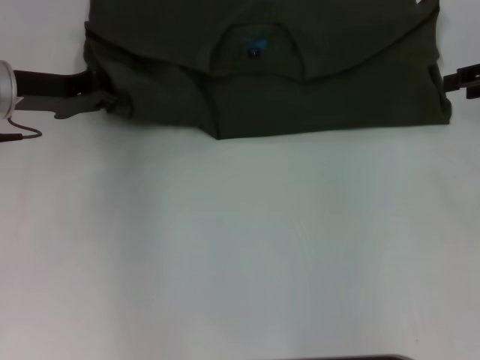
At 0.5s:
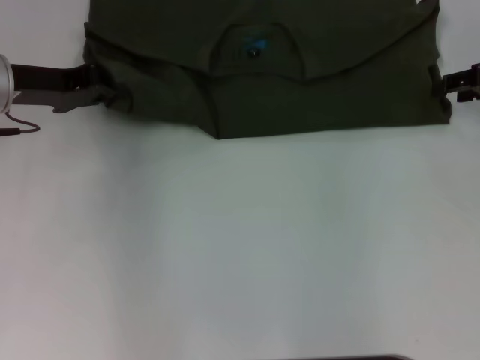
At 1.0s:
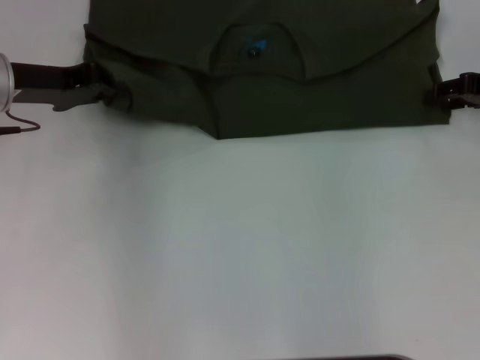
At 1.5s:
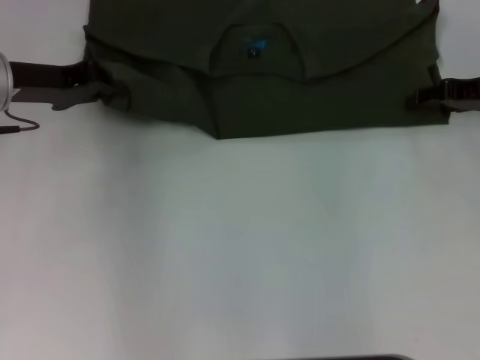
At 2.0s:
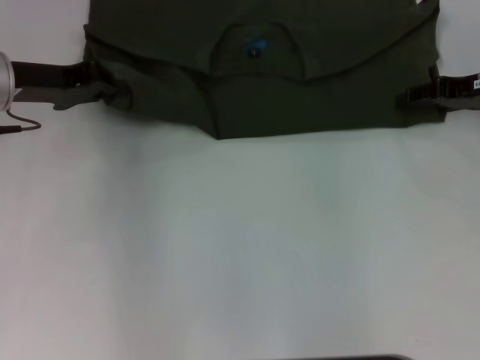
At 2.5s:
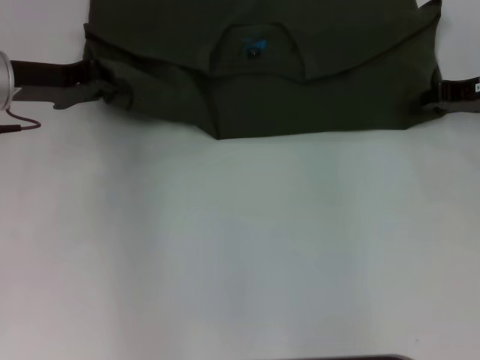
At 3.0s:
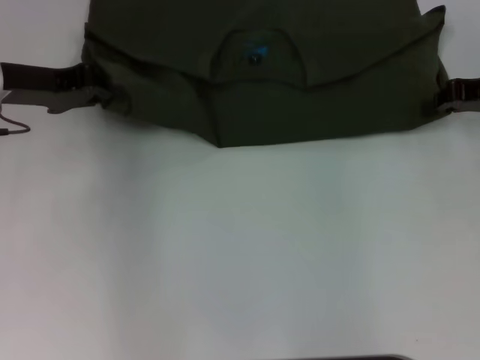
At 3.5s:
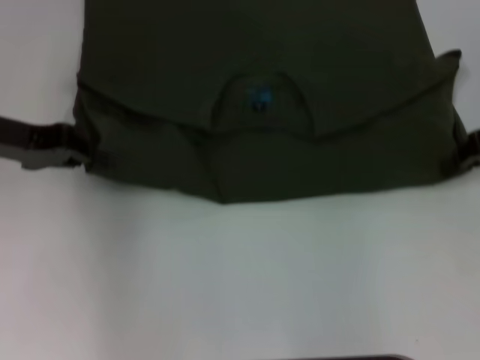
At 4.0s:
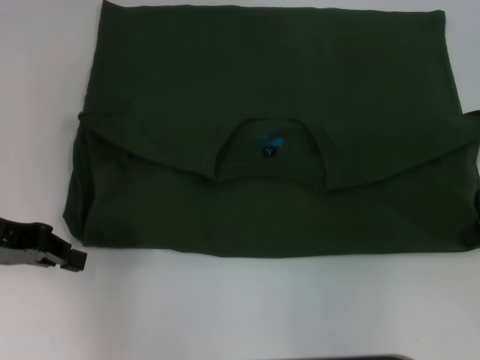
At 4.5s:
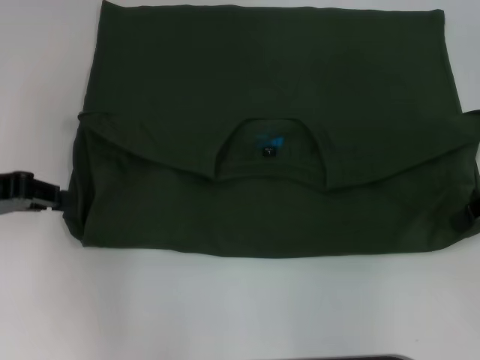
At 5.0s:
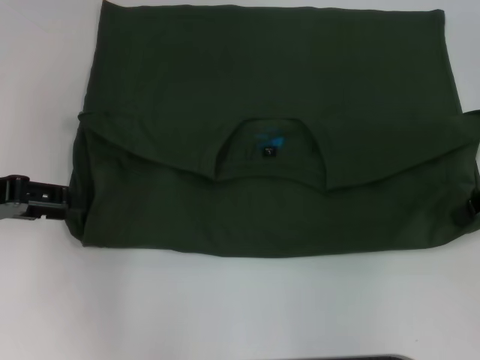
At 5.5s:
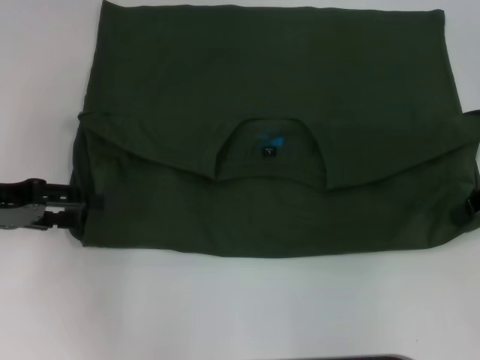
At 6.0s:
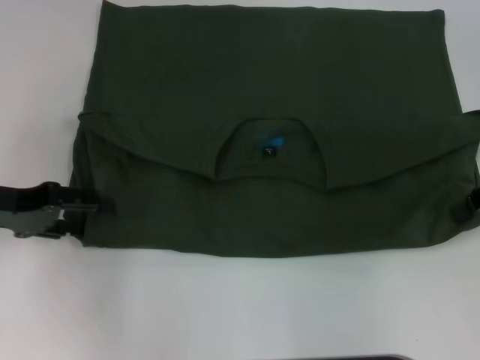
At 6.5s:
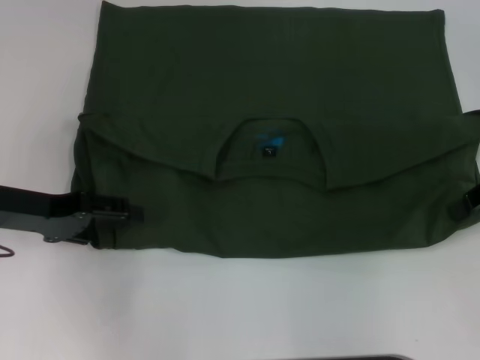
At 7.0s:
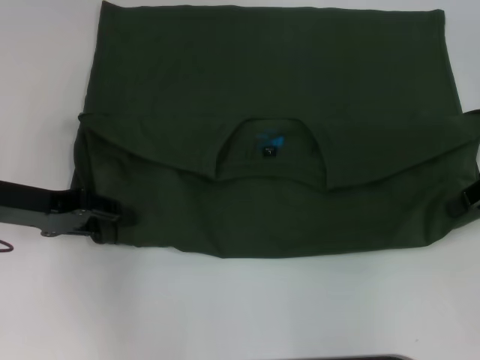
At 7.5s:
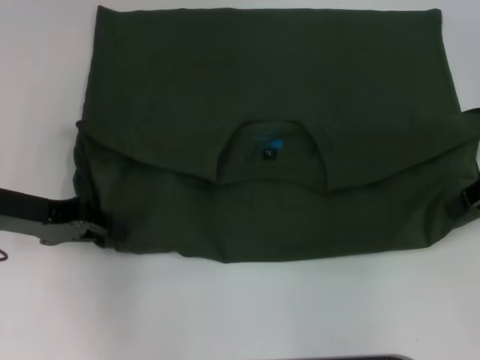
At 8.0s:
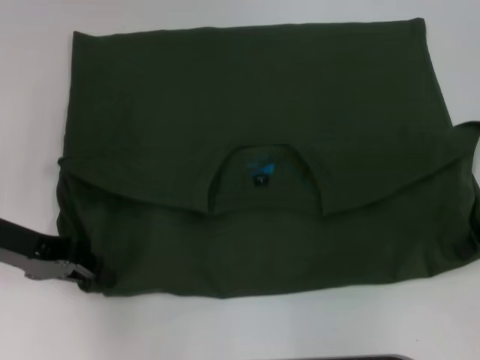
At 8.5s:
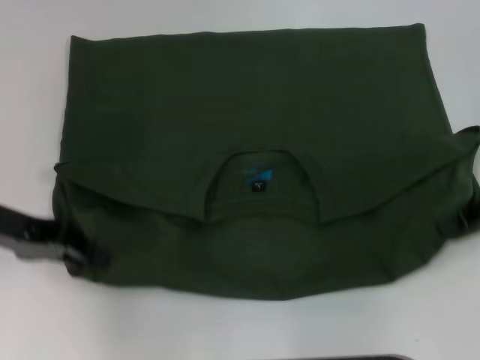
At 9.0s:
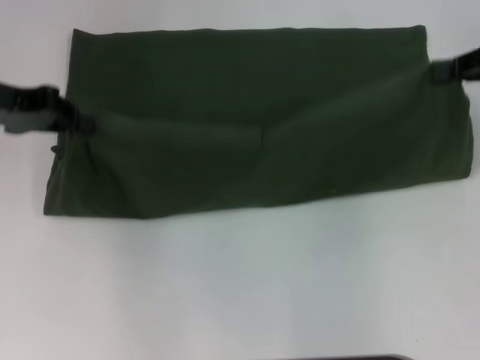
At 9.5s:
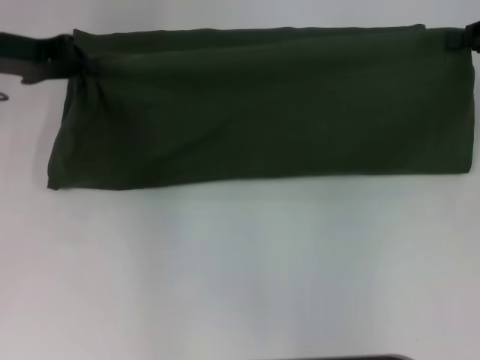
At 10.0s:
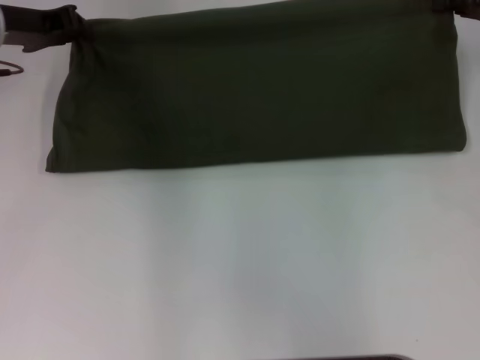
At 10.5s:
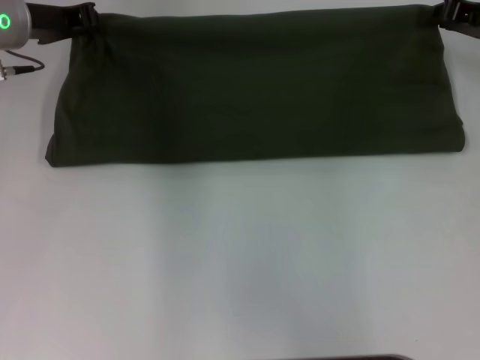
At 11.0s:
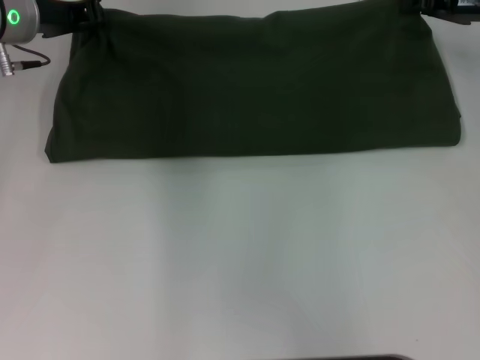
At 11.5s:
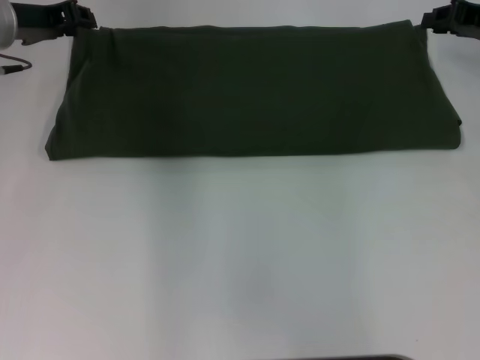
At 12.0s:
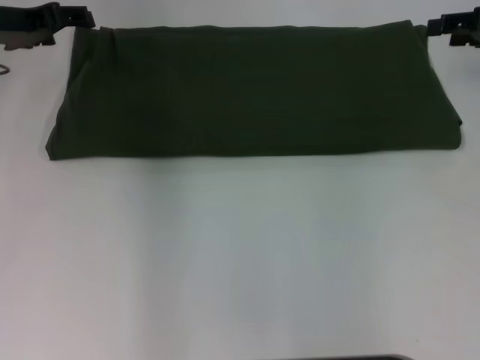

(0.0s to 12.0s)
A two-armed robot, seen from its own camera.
Step, 0.0s - 4.0s: Pull the clothes with your left hand.
Step, 0.0s - 4.0s: Pull the clothes with your right hand.
0.0s - 2.0s: The right gripper shifts by some 5 cm.
2.0s - 4.0s: Both grippers move backward, roughly 10 cm. The right gripper closes.
4.0s - 6.0s: The left gripper opens up.
6.0s - 8.0s: The left gripper closes up.
8.0s - 10.0s: The two grippers go approximately 10 cm forward.
10.0s - 12.0s: The left gripper opens. Meanwhile the right gripper opens up.

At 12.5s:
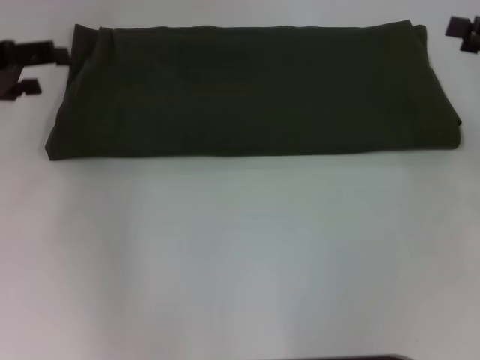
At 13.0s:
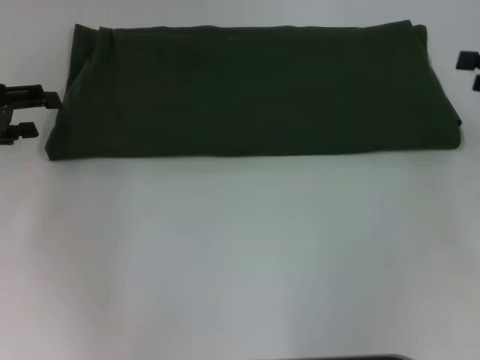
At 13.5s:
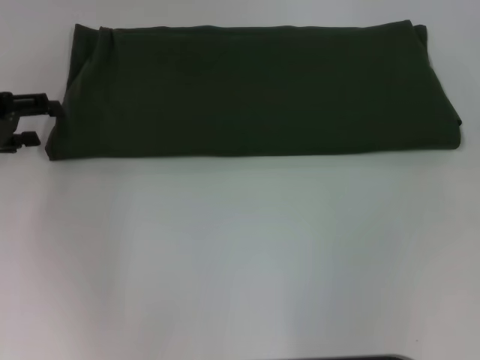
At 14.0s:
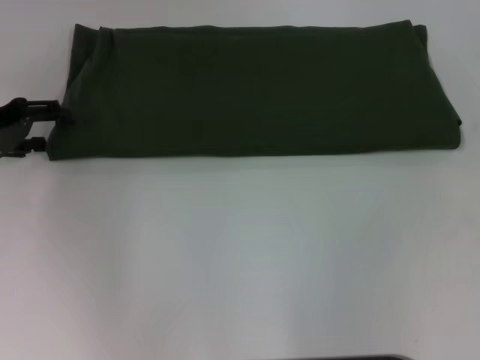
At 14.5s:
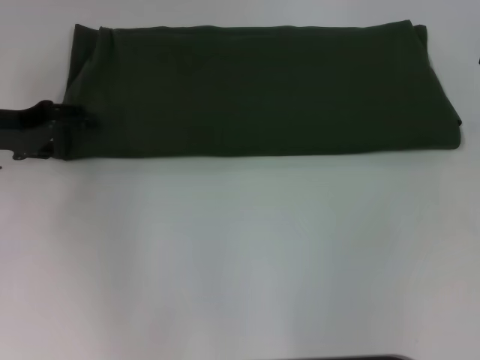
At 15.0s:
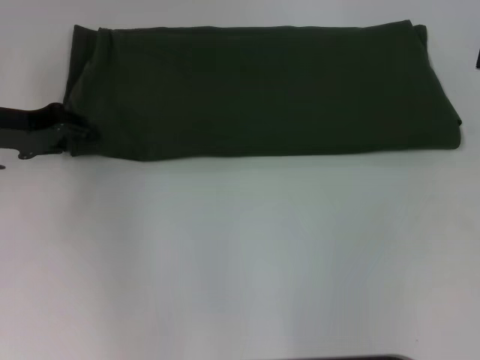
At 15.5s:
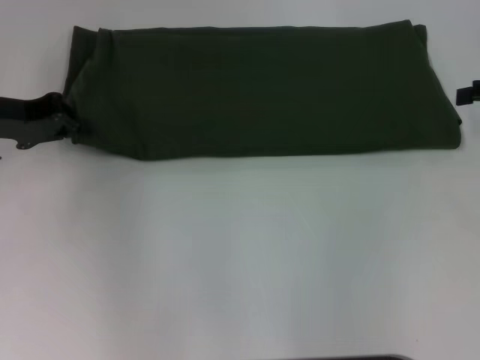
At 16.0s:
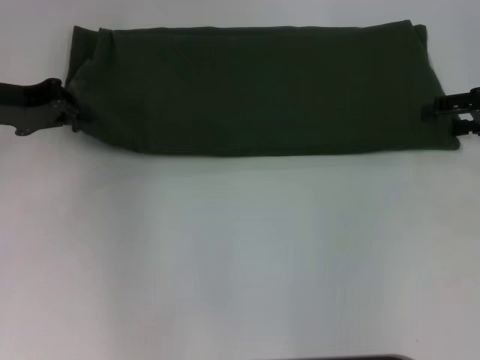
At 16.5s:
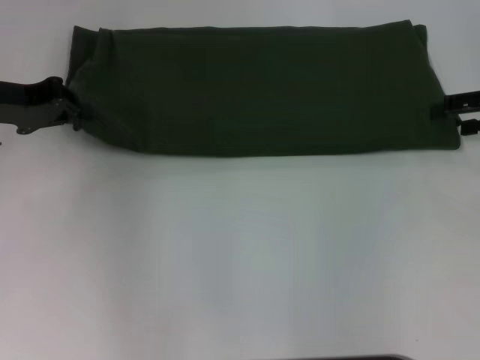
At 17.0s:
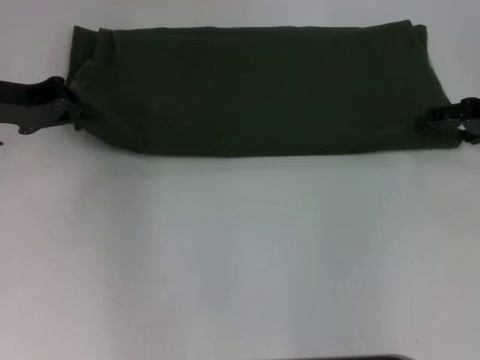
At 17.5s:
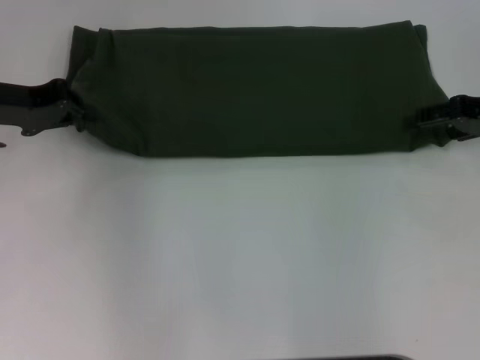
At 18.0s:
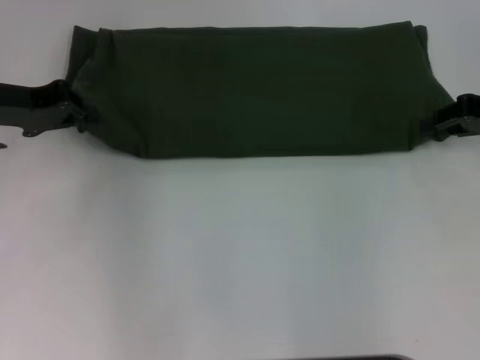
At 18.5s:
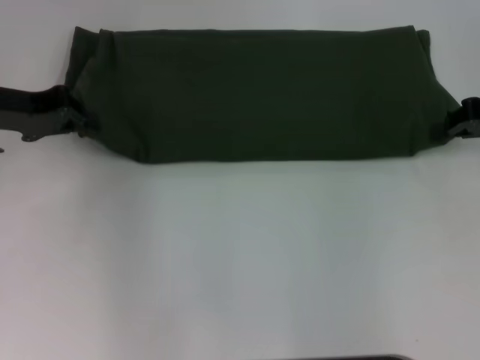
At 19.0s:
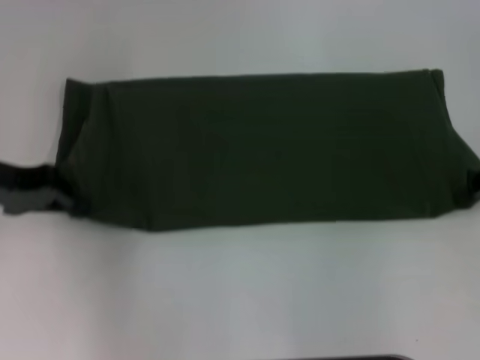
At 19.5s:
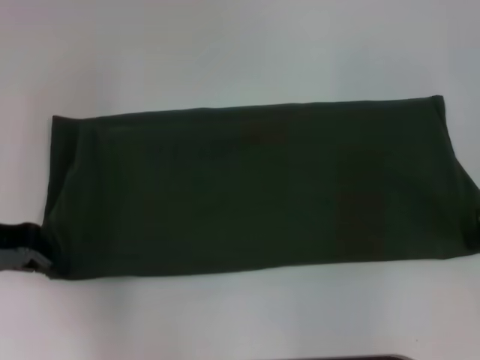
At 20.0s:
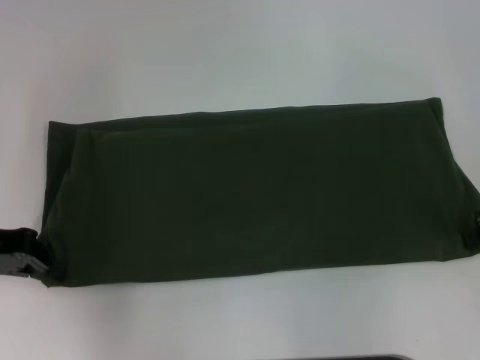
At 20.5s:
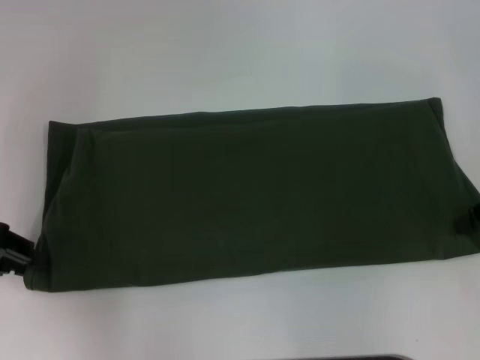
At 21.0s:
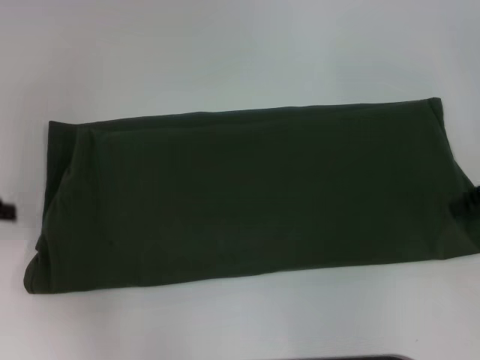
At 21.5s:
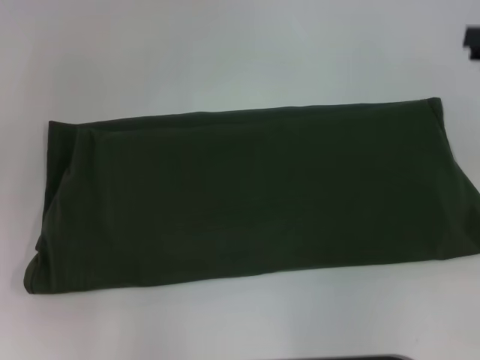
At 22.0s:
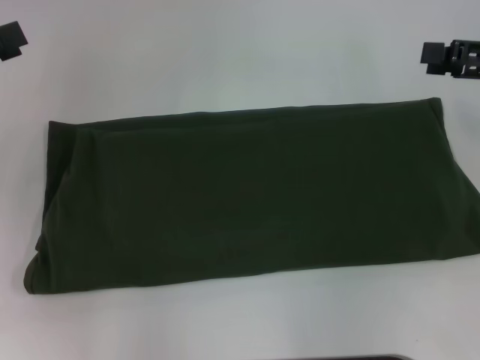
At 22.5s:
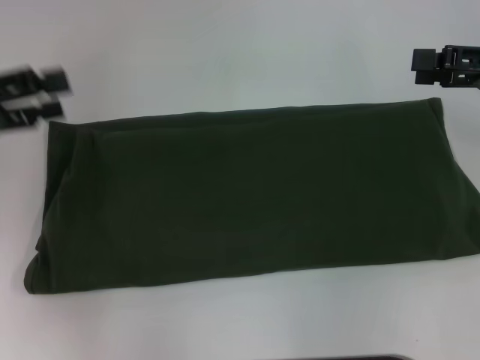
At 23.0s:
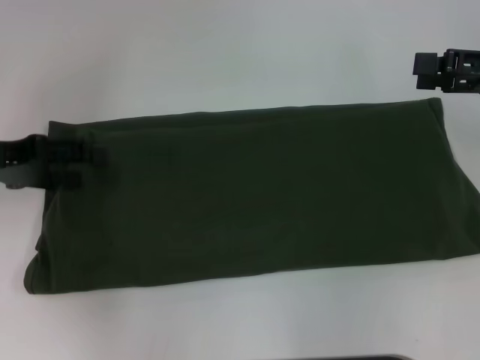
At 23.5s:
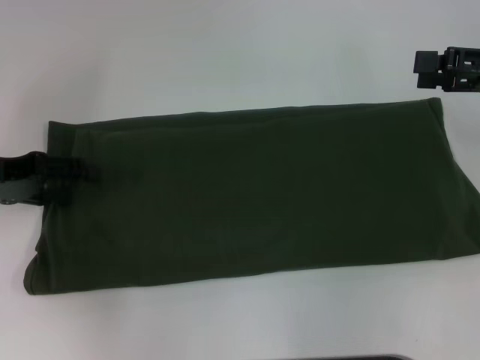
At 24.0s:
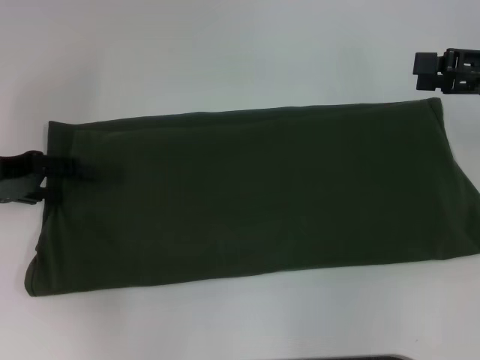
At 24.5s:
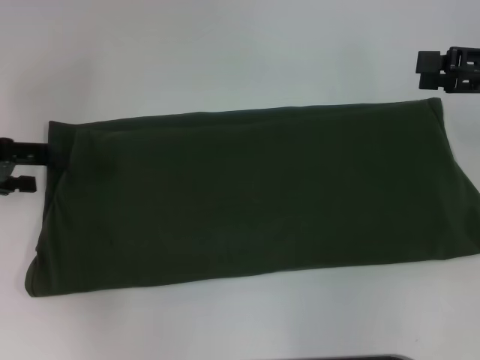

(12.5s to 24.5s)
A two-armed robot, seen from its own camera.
Step, 12.5s - 15.5s: Fold the clothes with your left hand.
Step, 12.5s - 15.5s: Fold the clothes with your right hand.
Step, 16.0s - 20.0s: Pull the clothes with your left hand.
Step, 16.0s - 20.0s: Pull the clothes with your right hand.
12.5s - 14.5s: The left gripper moves downward, about 5 cm.
14.5s - 16.5s: The right gripper moves some 5 cm, while the left gripper closes.
16.5s - 18.5s: The right gripper closes.
18.5s - 20.5s: The right gripper shifts by roughly 5 cm, while the left gripper is displaced backward by roughly 10 cm.
20.5s - 22.5s: The right gripper opens. Meanwhile the left gripper opens up.

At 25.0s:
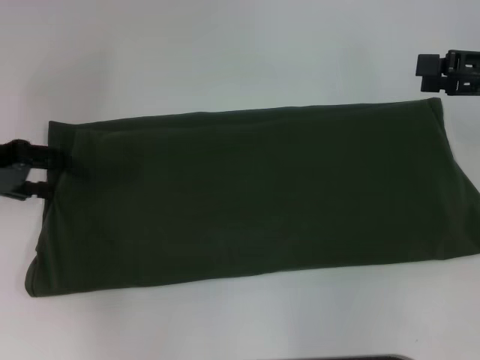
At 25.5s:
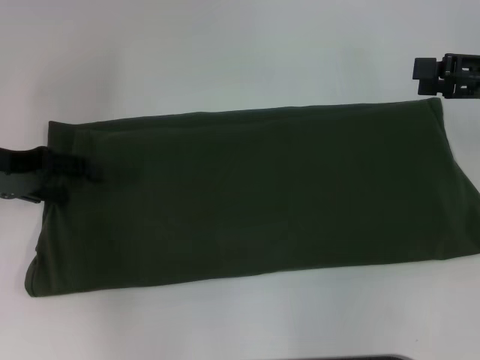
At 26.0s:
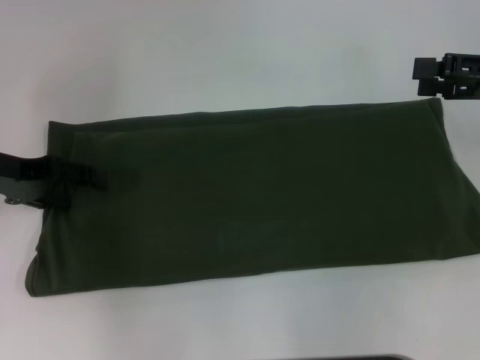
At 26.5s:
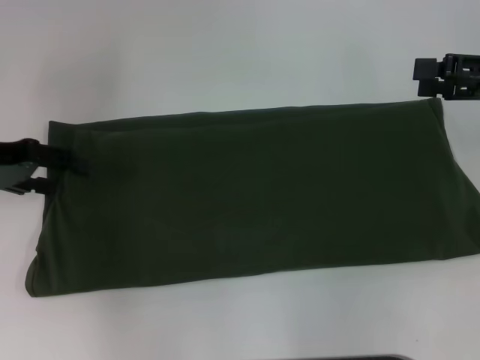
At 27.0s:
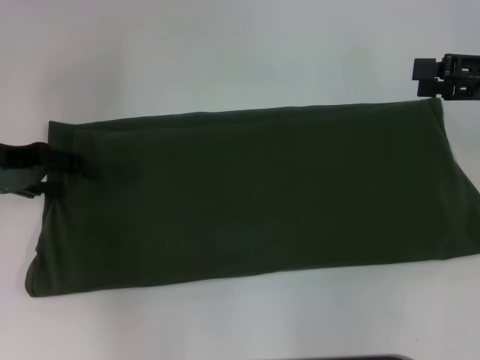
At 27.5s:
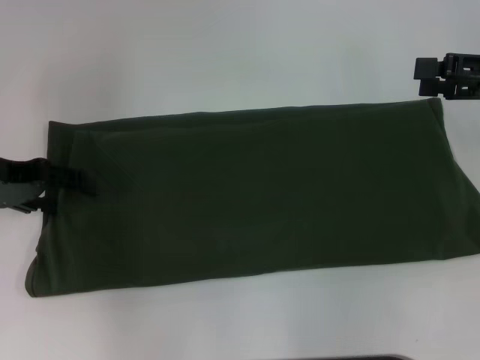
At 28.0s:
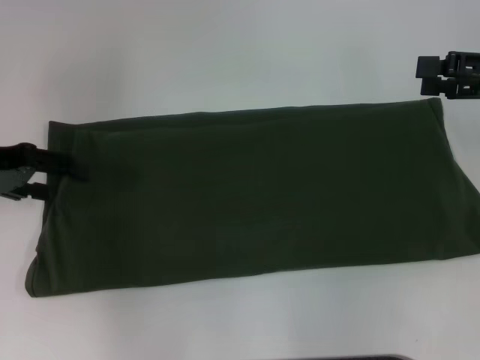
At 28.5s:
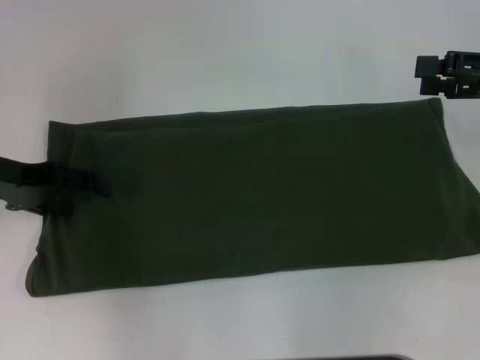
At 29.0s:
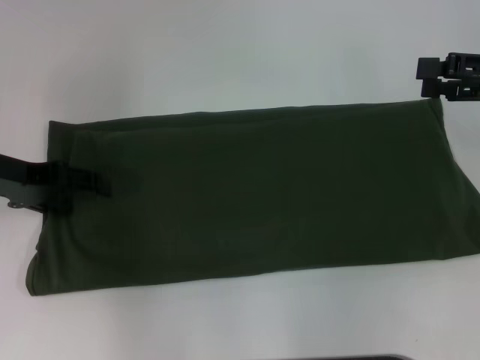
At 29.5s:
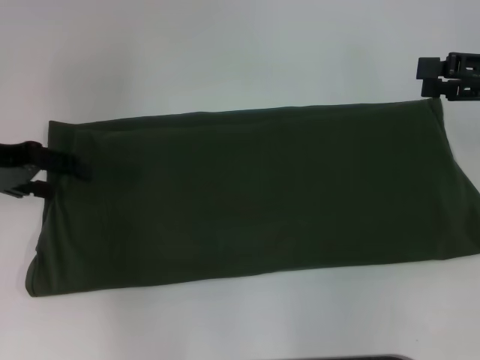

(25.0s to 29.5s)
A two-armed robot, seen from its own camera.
25.0s - 27.0s: The grippers make only small movements.
